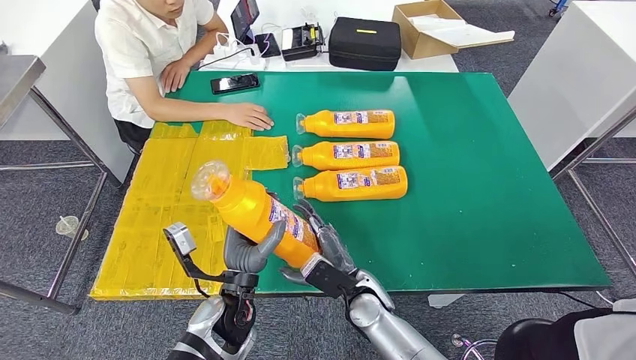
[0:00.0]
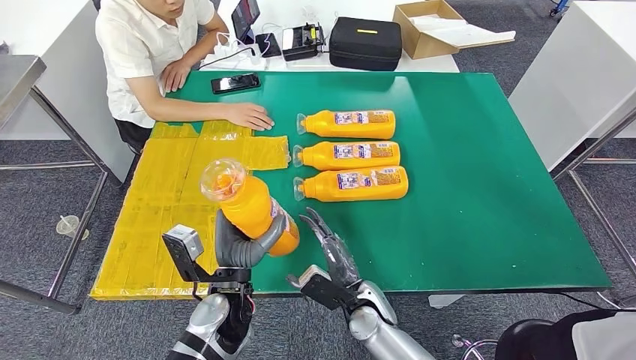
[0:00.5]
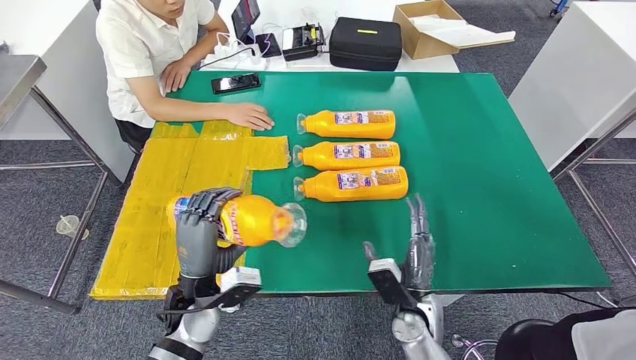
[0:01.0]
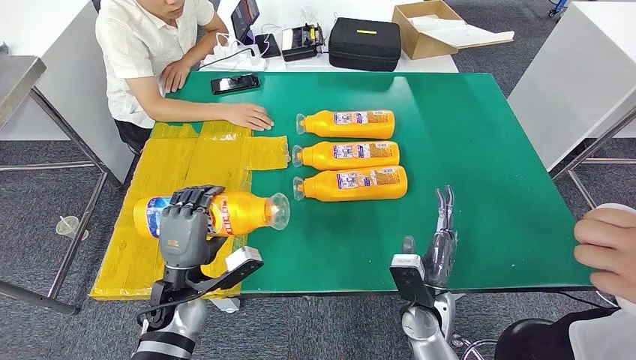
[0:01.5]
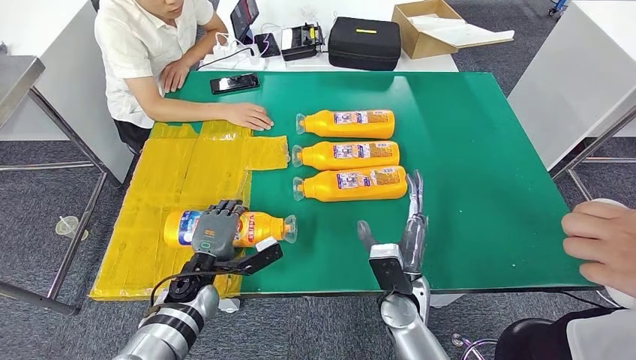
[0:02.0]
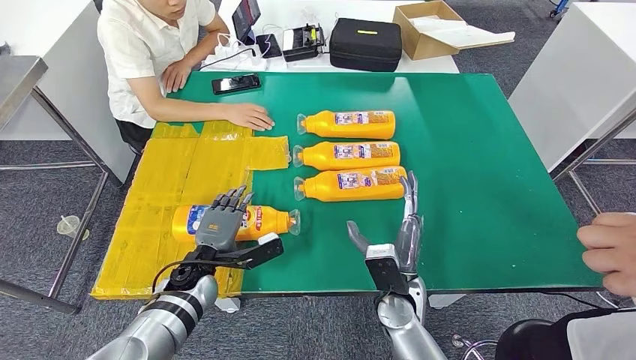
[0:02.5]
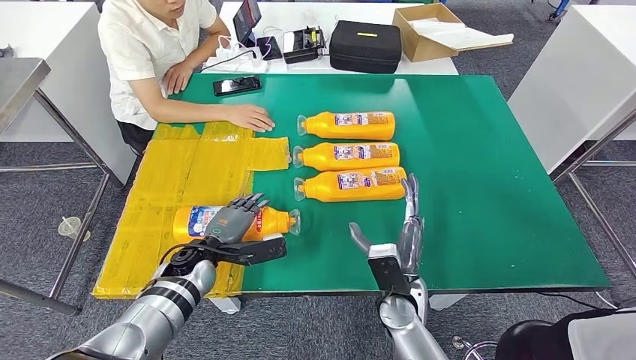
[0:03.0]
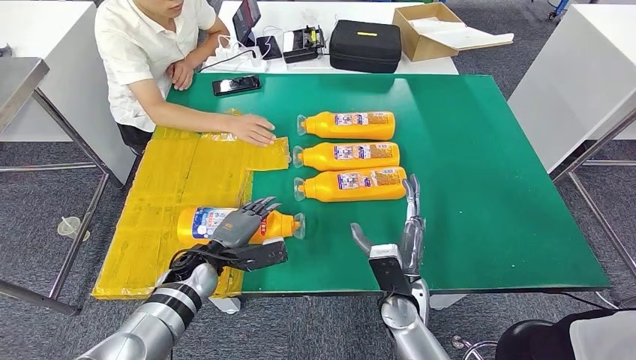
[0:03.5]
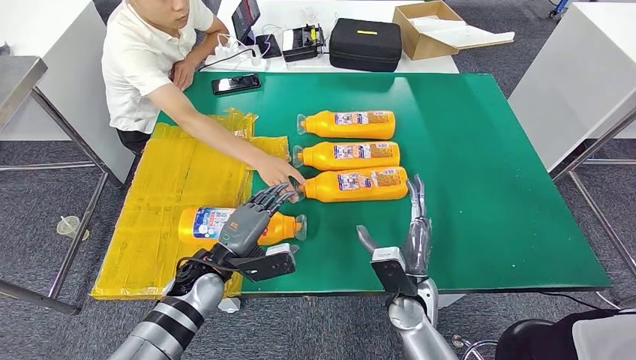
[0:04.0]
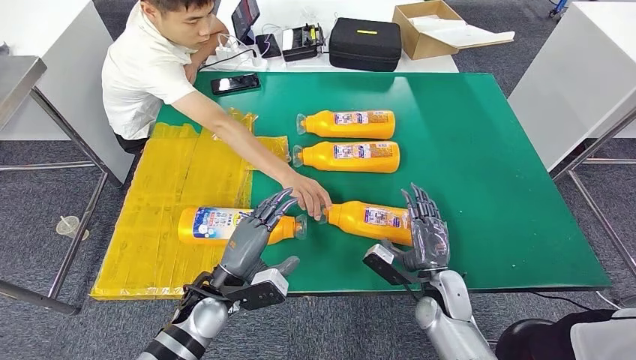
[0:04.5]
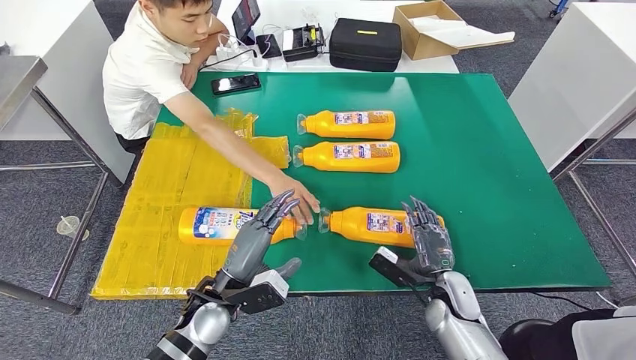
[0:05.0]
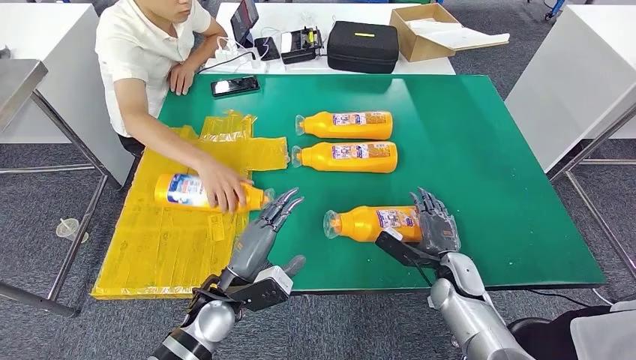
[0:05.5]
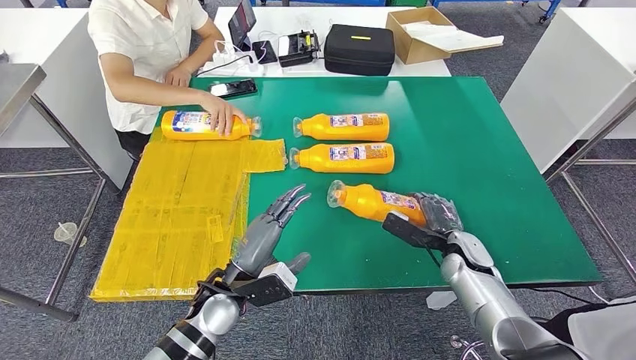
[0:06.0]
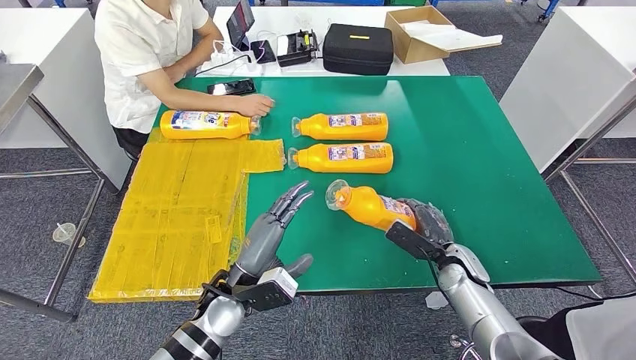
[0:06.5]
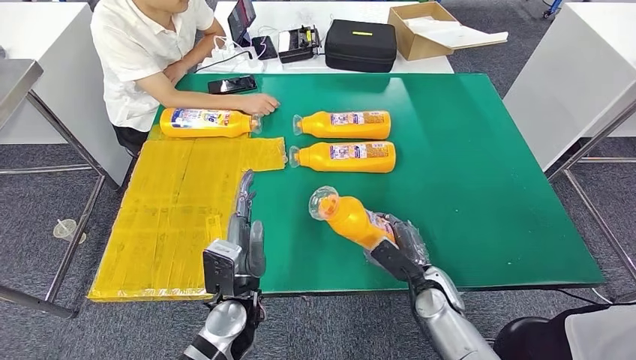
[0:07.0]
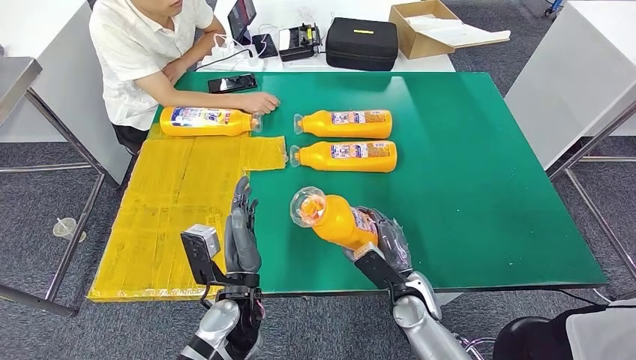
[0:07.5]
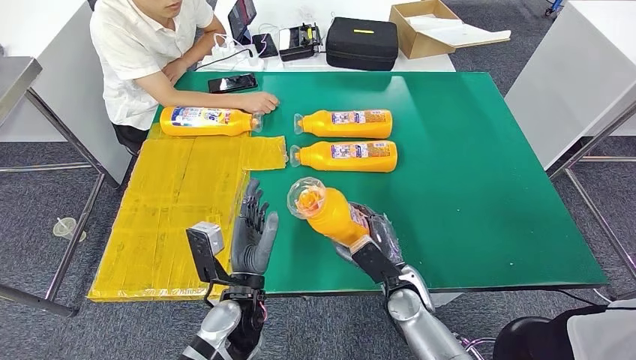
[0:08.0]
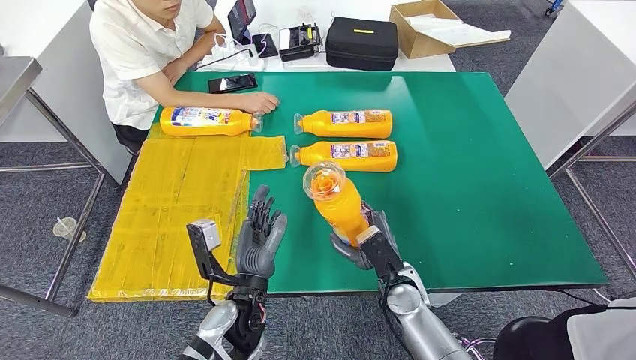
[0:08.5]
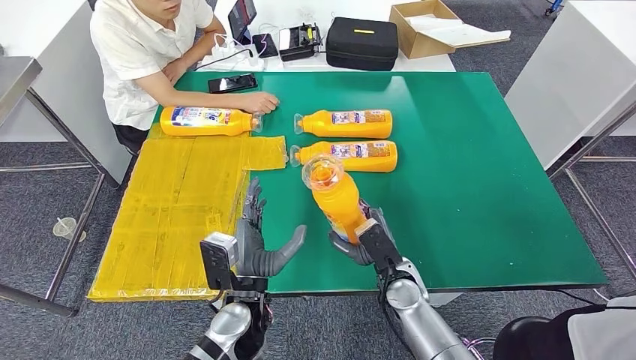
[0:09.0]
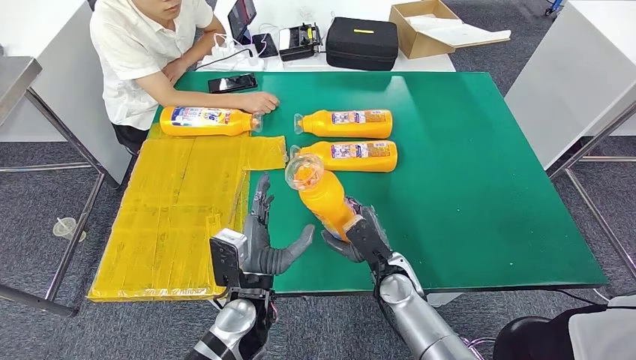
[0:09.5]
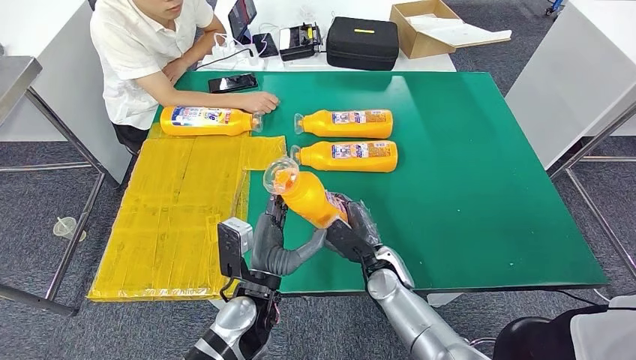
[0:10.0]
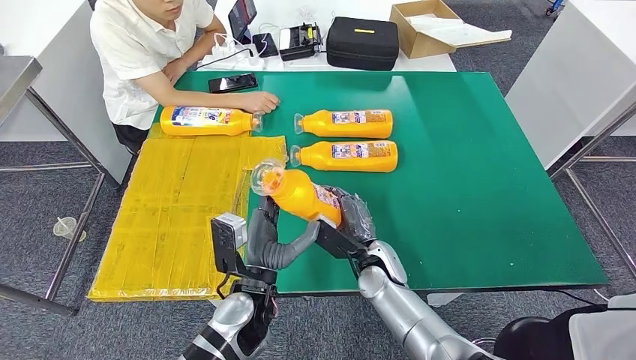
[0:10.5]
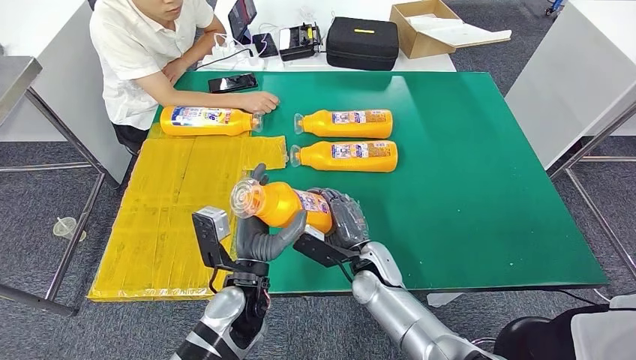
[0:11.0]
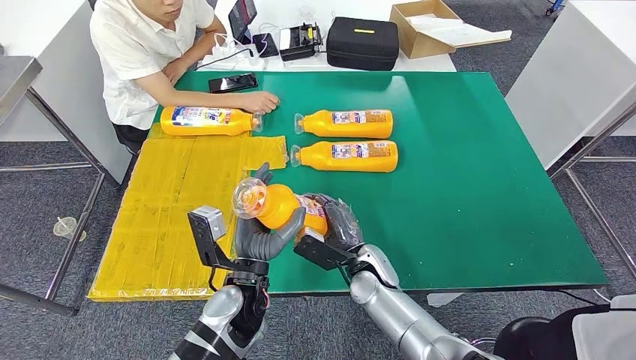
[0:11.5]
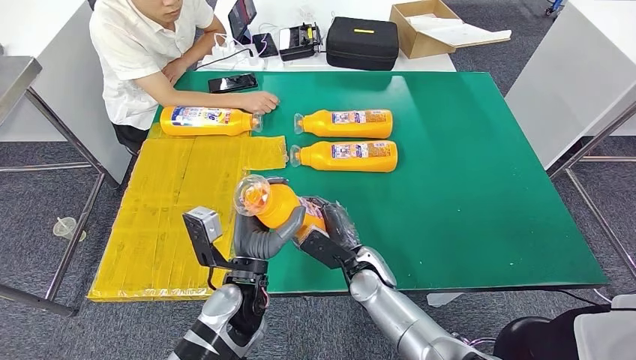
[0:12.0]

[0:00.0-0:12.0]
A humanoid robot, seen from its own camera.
Step, 0:00.0 to 0:04.0: Flip the fast-moving consumer goods bottle to the front side.
Step, 0:06.5 to 0:08.5: Pick up the fast-moving consumer goods bottle from the table.
0:00.0 to 0:02.0: The left hand is displaced to the left, forward and downward by approximately 15 cm; the right hand shifts about 5 cm to the right.
0:02.0 to 0:04.0: The left hand moves about 5 cm.
0:08.0 to 0:10.0: There are only small adjustments of the hands.

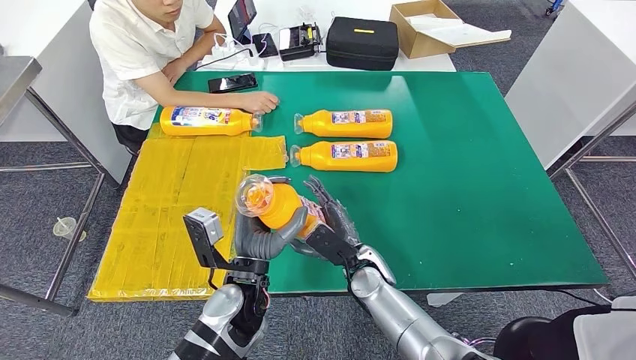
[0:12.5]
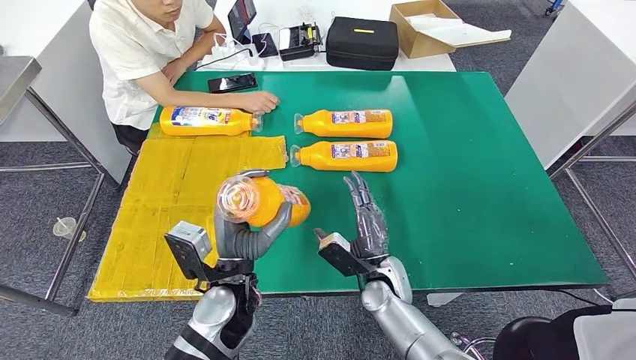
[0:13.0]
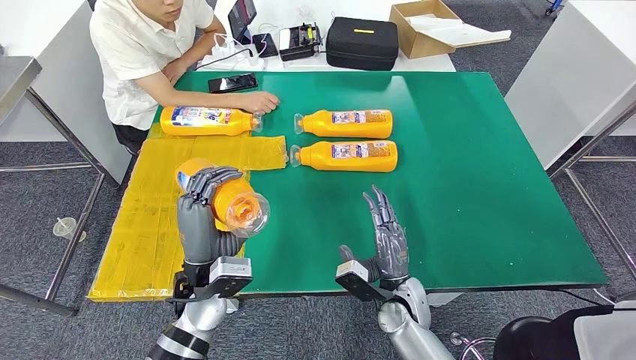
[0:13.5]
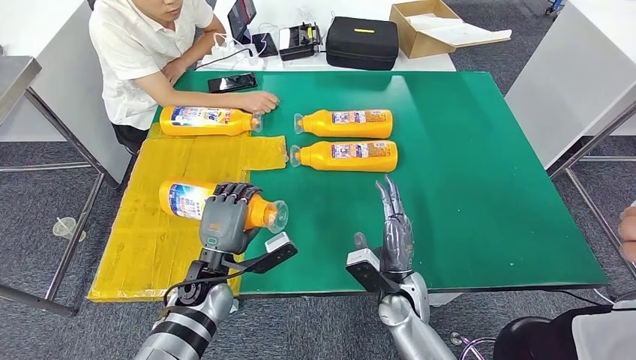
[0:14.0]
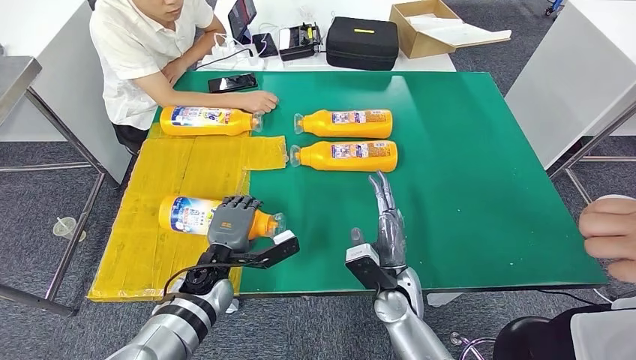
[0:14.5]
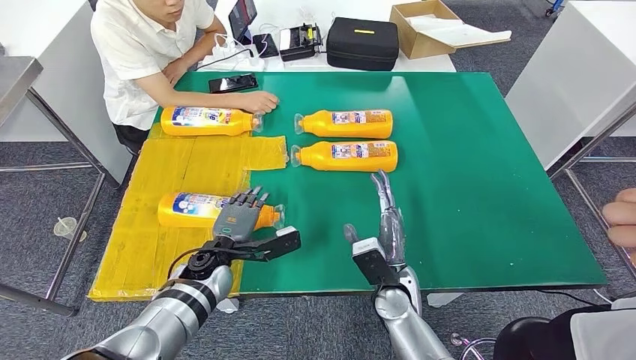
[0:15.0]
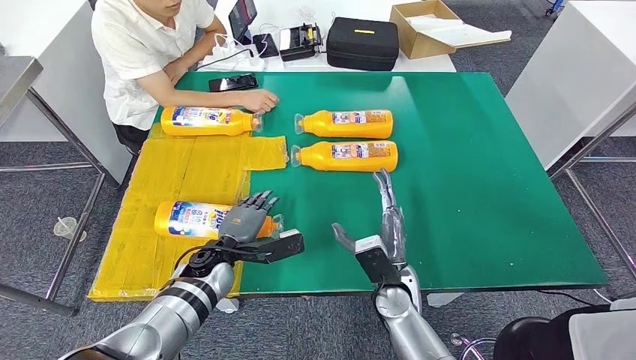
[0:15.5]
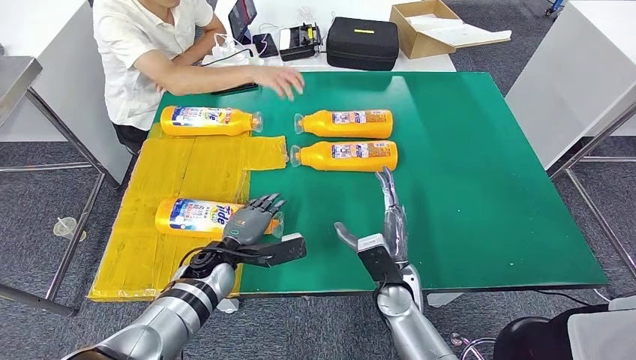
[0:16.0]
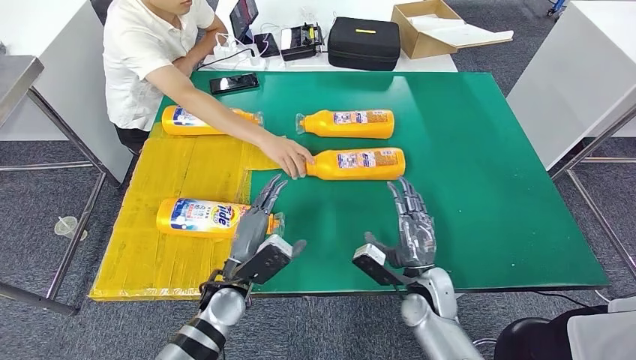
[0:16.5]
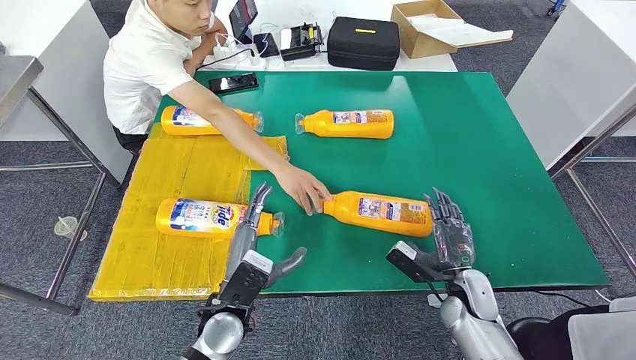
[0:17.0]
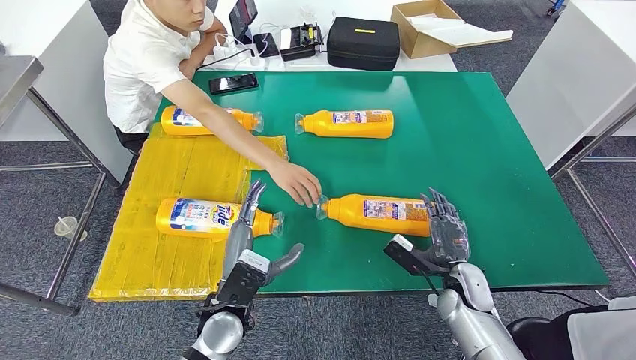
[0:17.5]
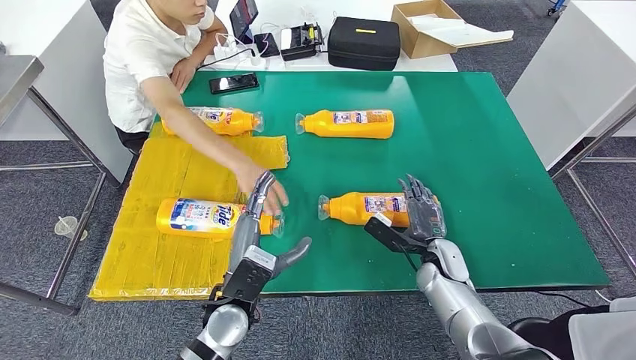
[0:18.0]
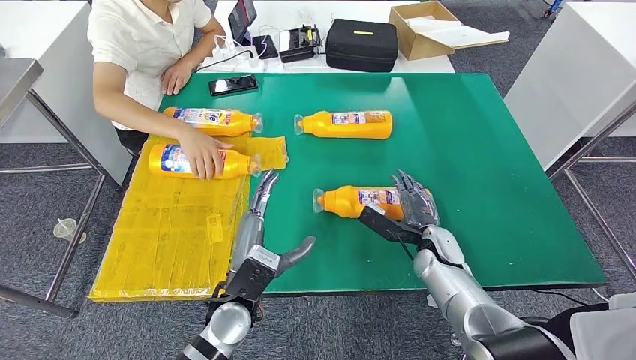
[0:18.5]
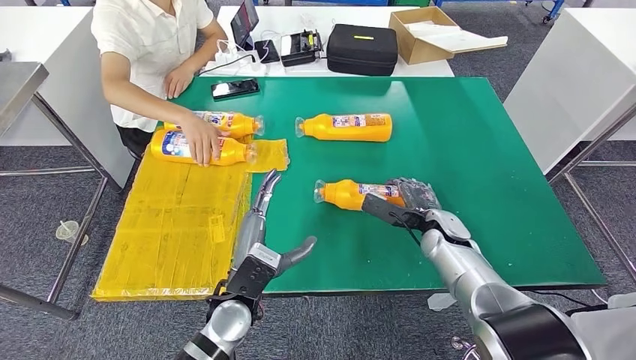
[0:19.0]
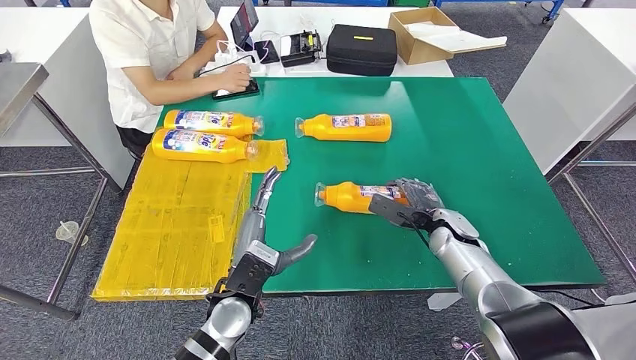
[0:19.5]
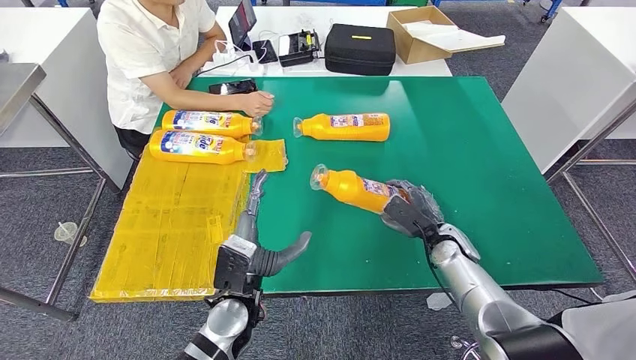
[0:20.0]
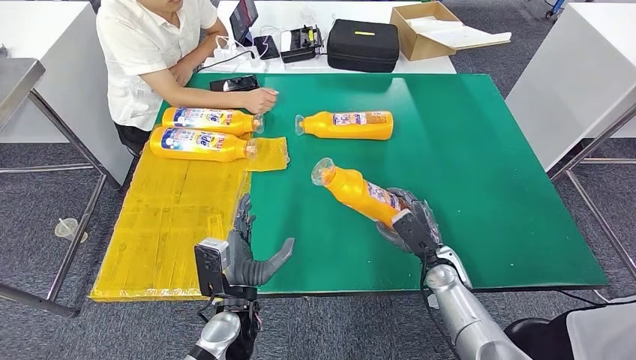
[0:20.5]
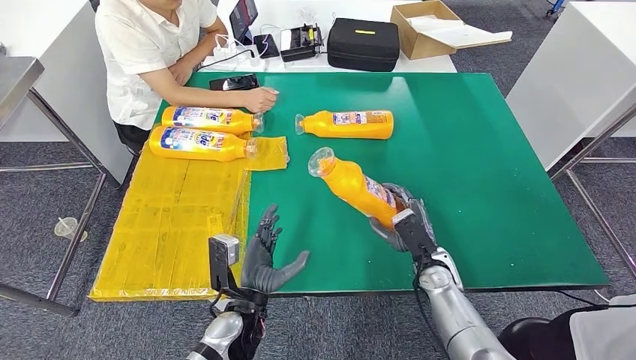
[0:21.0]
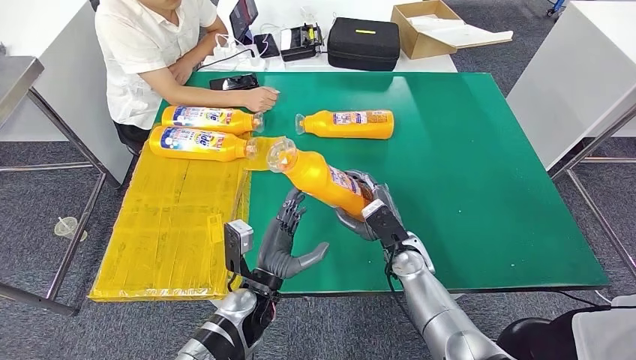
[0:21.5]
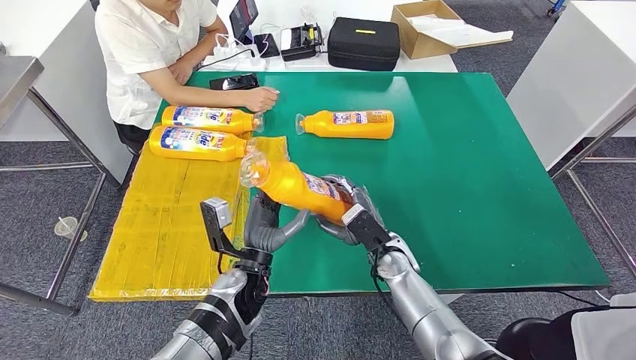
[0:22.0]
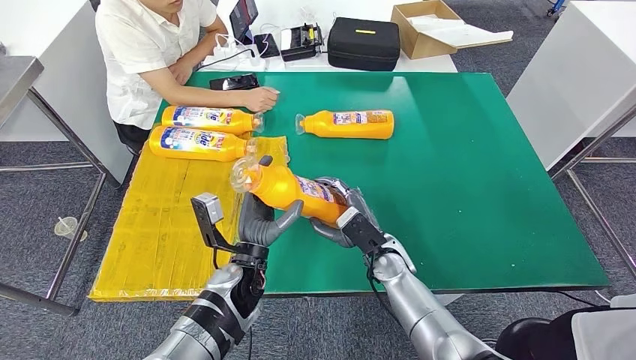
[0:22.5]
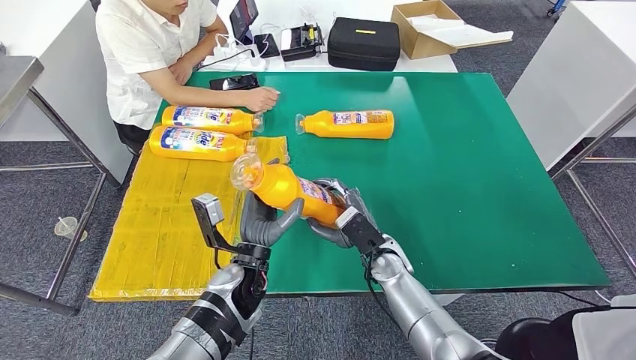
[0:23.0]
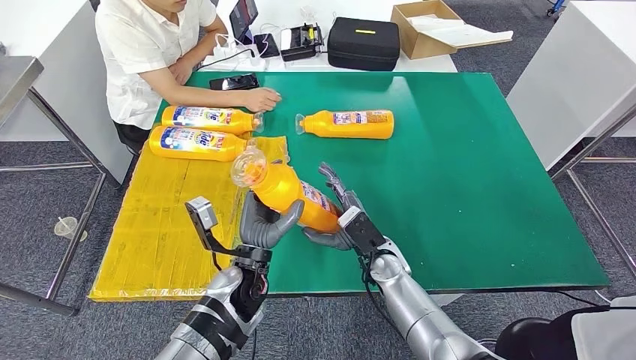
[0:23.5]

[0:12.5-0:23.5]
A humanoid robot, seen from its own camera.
Step, 0:12.5 to 0:15.5: Flip the fast-moving consumer goods bottle to the front side.
Step, 0:18.5 to 0:22.0: Pick up the fast-moving consumer goods bottle from the table.
0:12.5 to 0:14.5: The right hand changes place by some 5 cm; the left hand travels to the left, forward and downward by roughly 15 cm.
0:21.5 to 0:23.5: The right hand shifts approximately 5 cm to the left.
